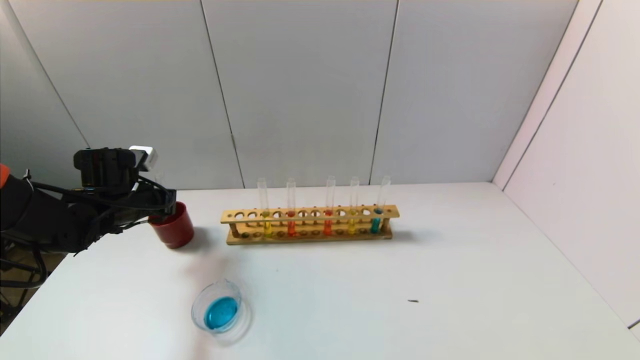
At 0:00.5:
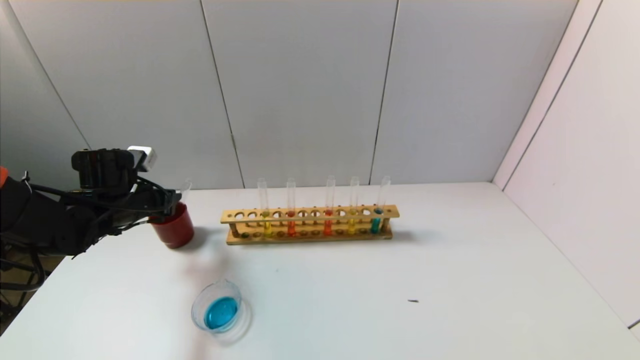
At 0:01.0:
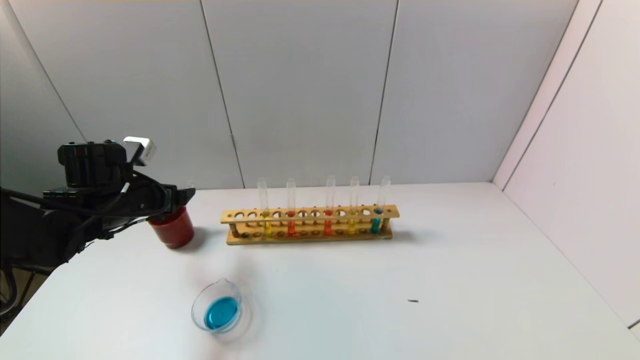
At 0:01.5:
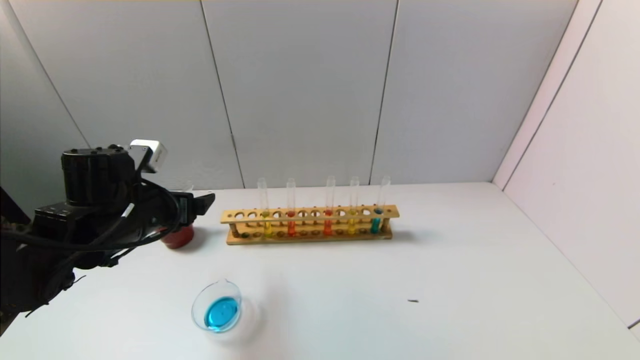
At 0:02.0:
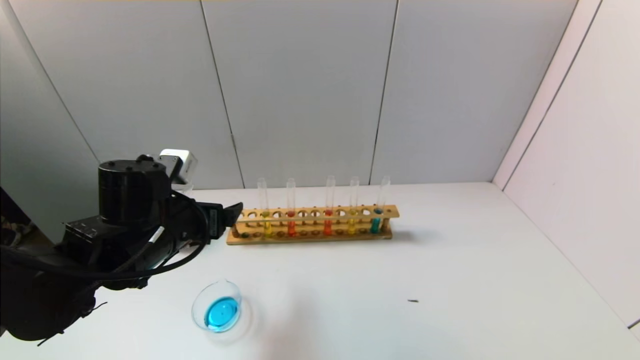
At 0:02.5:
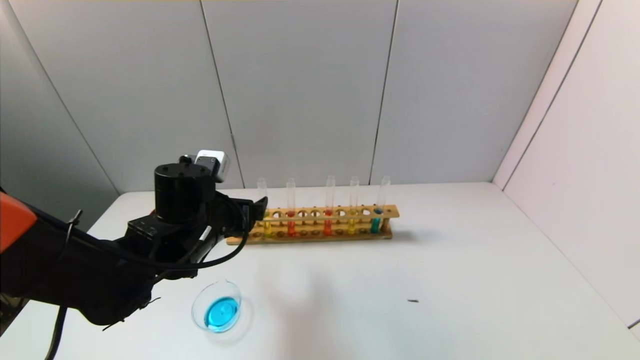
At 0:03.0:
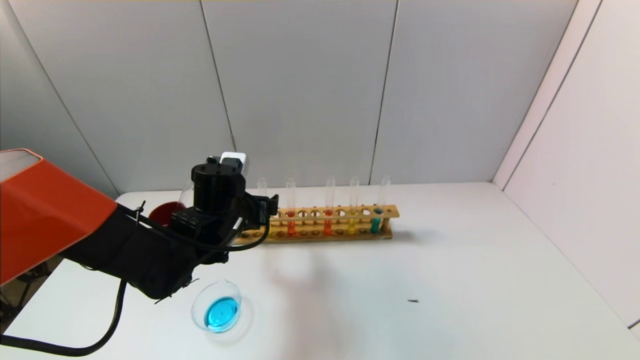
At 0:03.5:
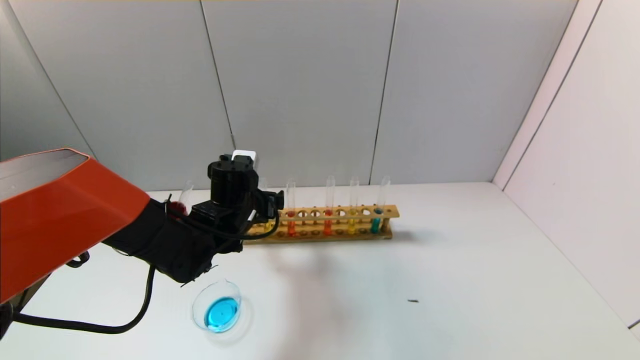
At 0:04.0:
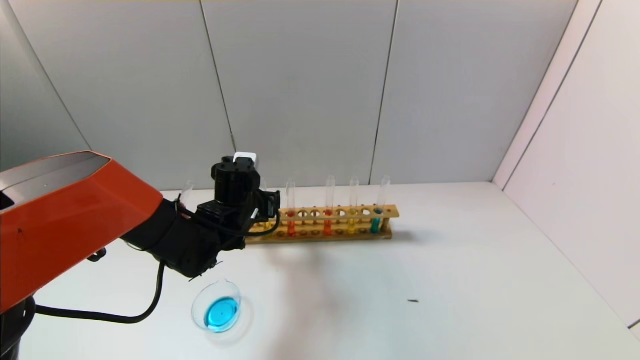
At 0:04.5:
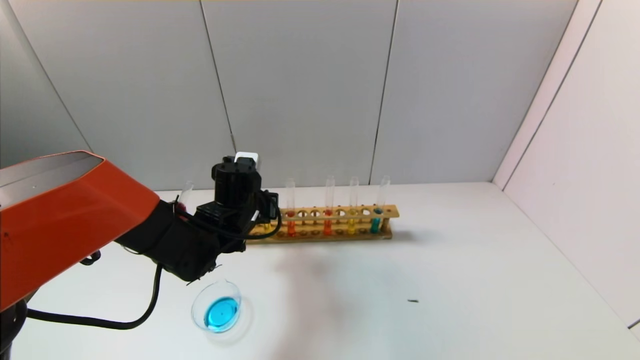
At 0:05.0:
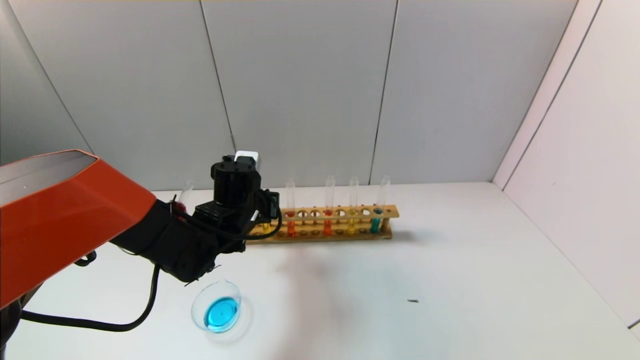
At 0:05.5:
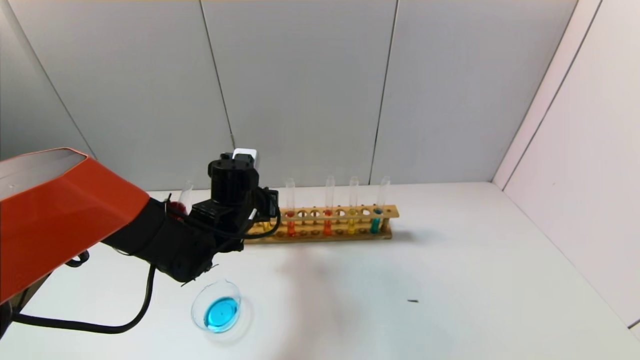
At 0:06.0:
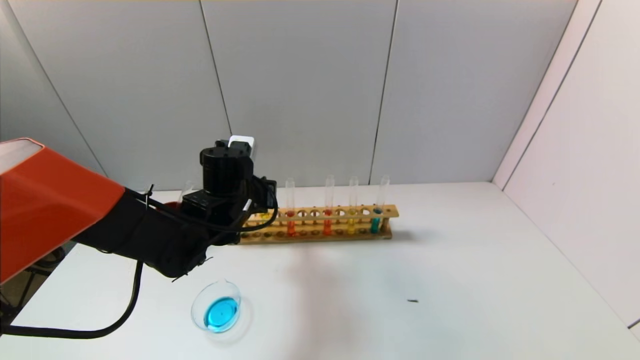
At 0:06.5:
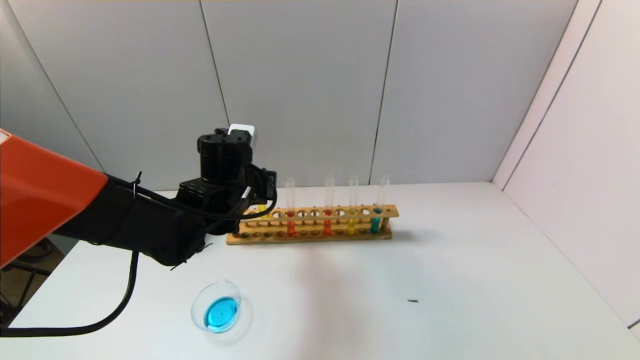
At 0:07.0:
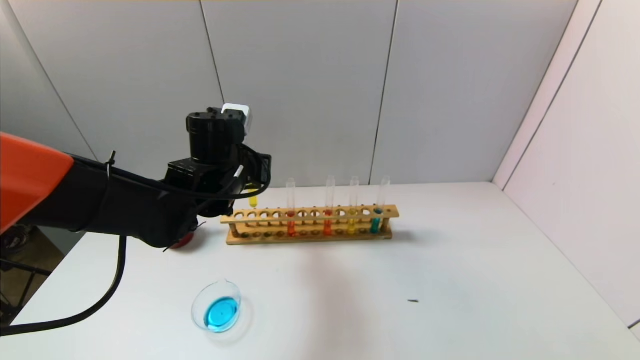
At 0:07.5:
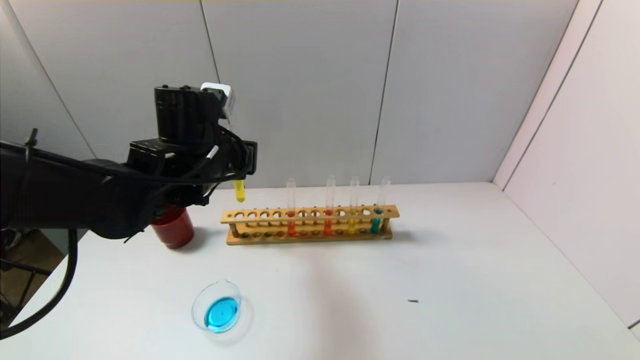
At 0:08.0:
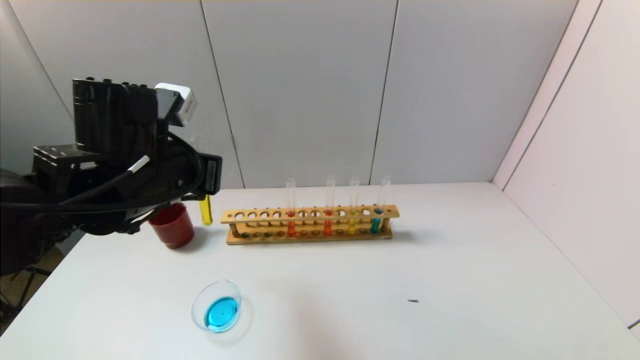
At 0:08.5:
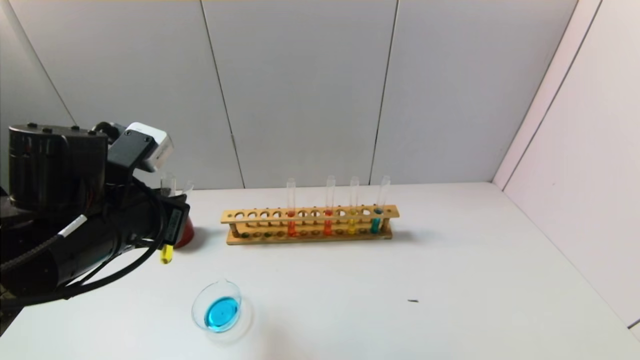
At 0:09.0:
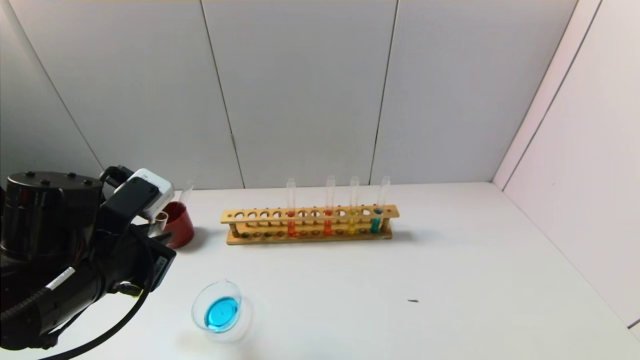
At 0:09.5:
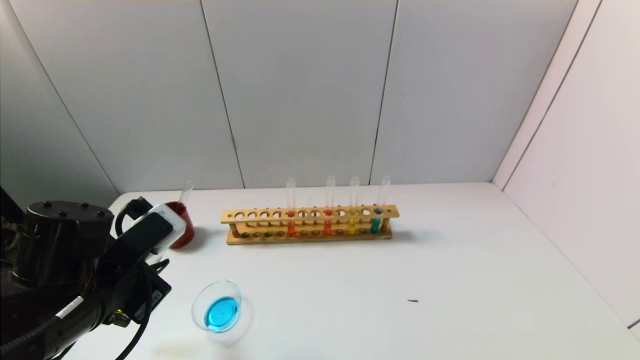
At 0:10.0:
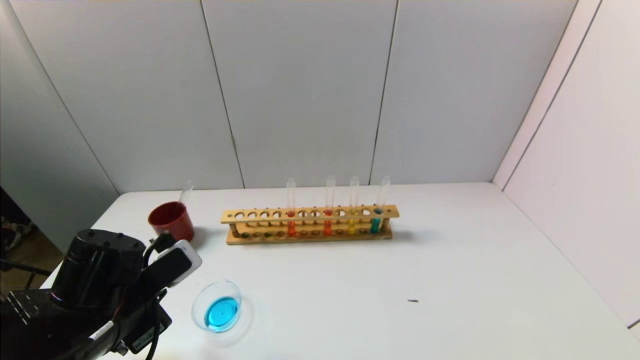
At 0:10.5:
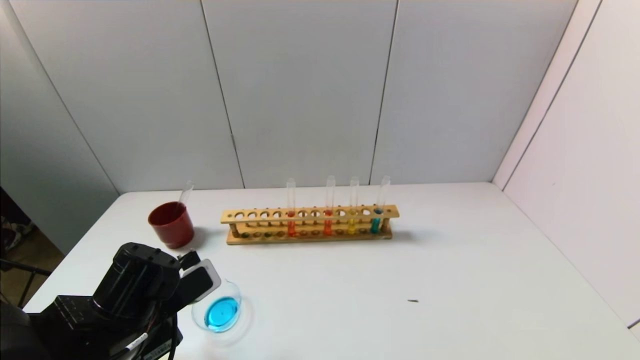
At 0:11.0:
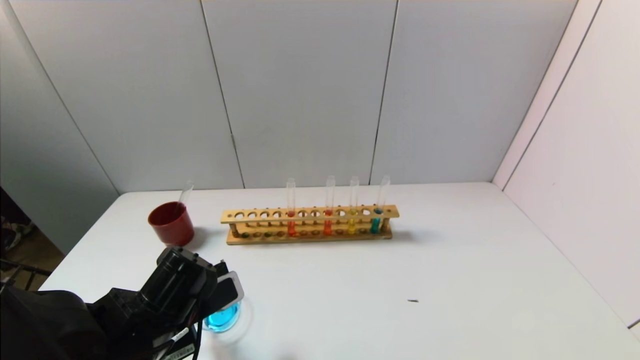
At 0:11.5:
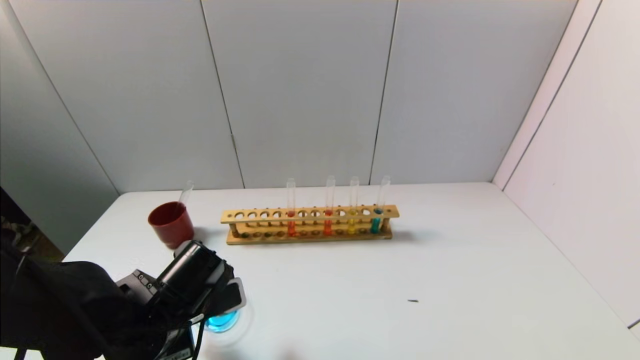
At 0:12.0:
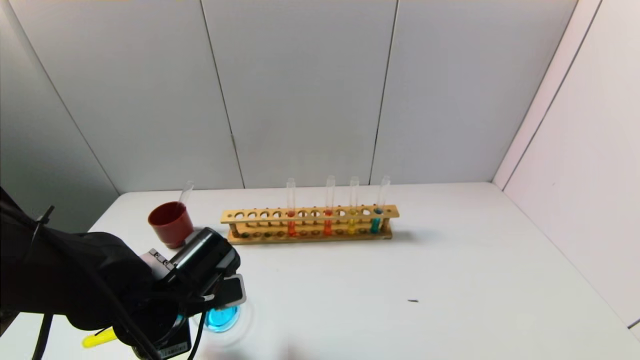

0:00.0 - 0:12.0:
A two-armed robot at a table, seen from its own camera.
Task of the whole recording: pick up the test tube with yellow pigment and the test tube with blue pigment by grippers and pour them into the beaker.
Step, 0:01.0 - 0:04.5: Grasp the yellow reagent with the left gripper.
0:00.0 - 0:02.0: The left gripper heads to the right and backward, covering about 15 cm, and opens up.
0:02.0 - 0:04.0: The left gripper shifts about 15 cm forward, to the right and downward.
0:04.0 - 0:06.0: The left gripper closes.
0:06.0 - 0:08.0: The left gripper travels upward and backward by about 15 cm.
0:08.0 - 0:10.0: The left gripper goes about 15 cm downward and backward.
0:10.0 - 0:12.0: The left gripper moves approximately 5 cm.

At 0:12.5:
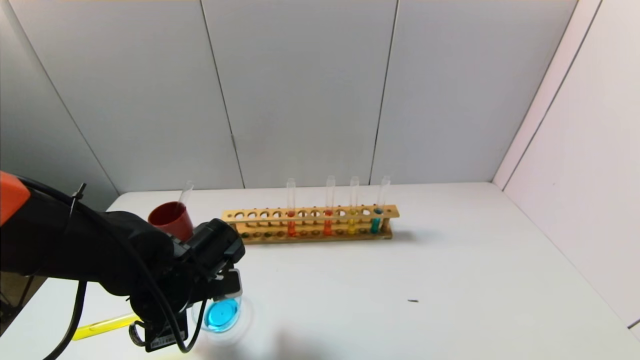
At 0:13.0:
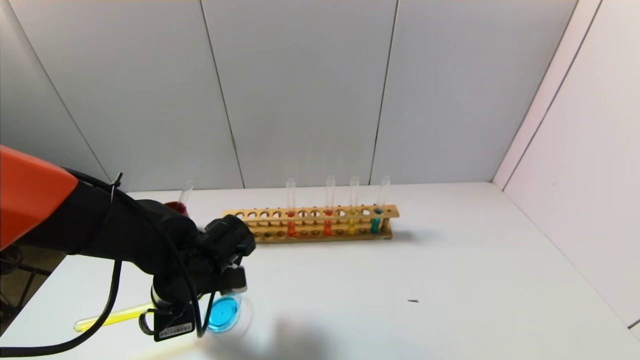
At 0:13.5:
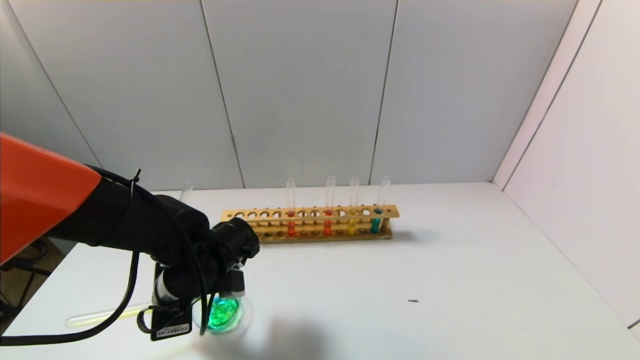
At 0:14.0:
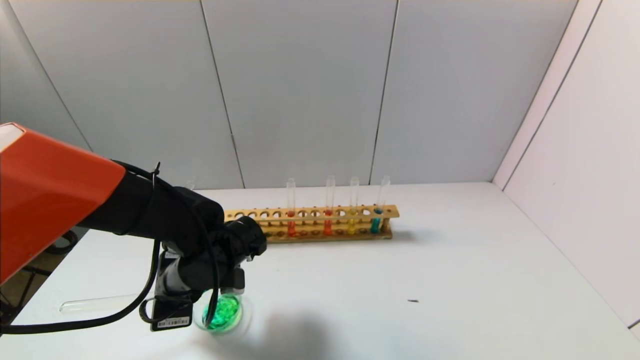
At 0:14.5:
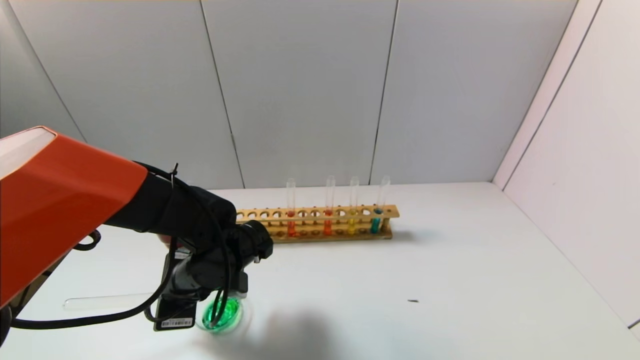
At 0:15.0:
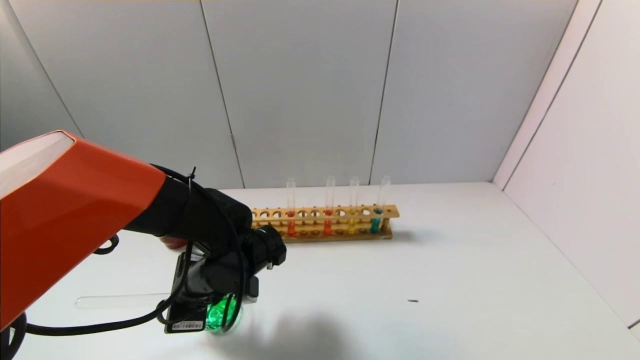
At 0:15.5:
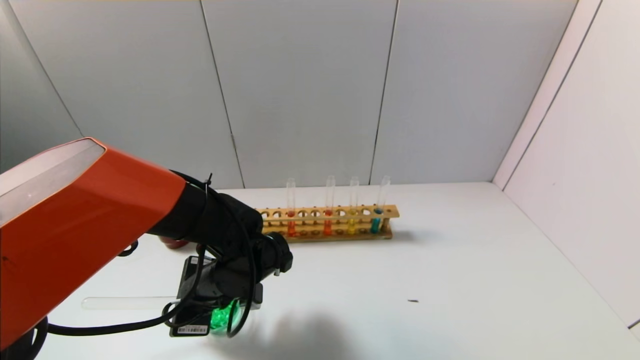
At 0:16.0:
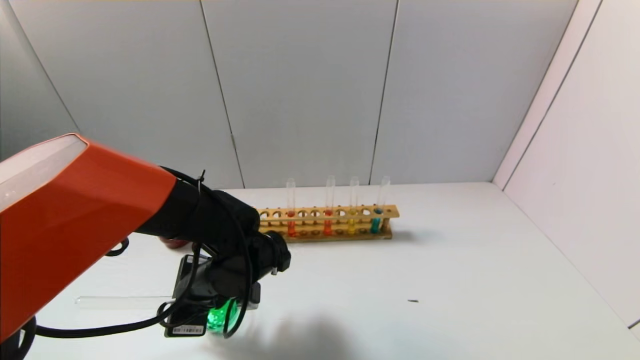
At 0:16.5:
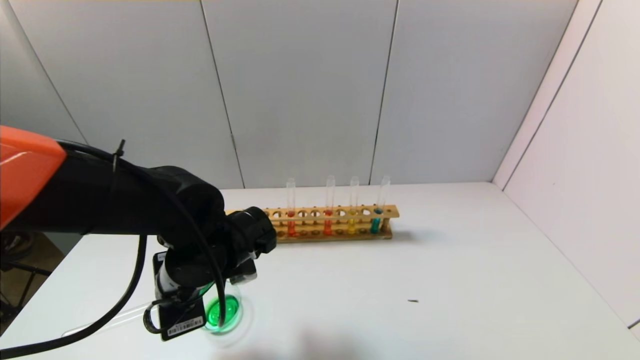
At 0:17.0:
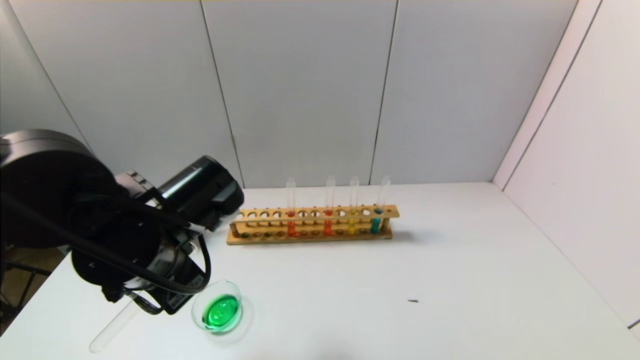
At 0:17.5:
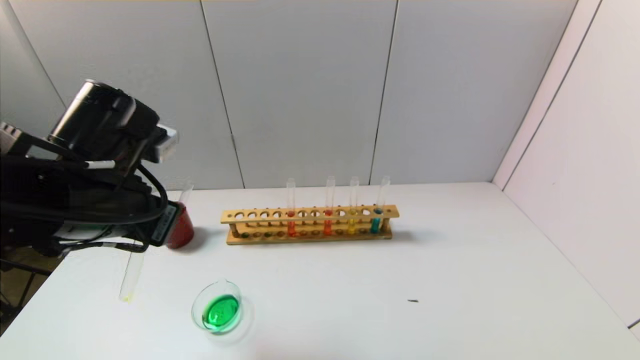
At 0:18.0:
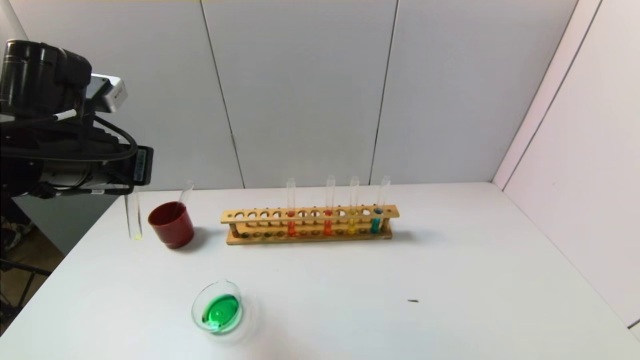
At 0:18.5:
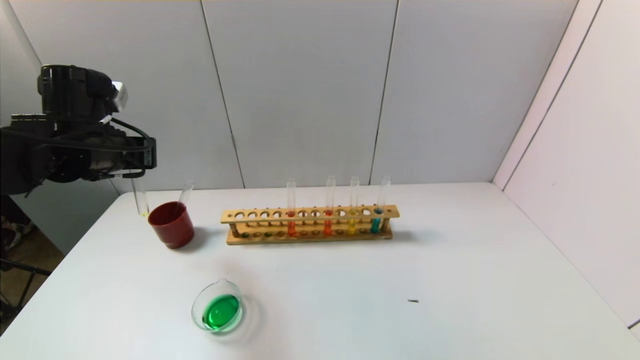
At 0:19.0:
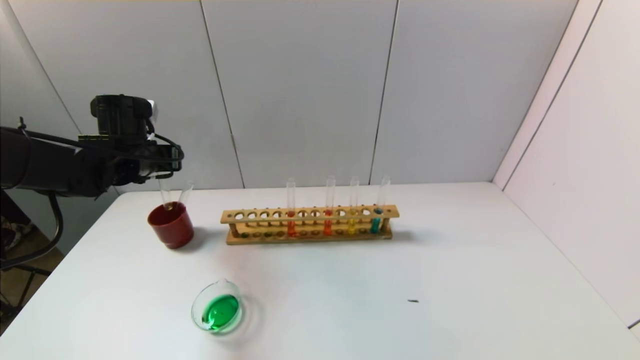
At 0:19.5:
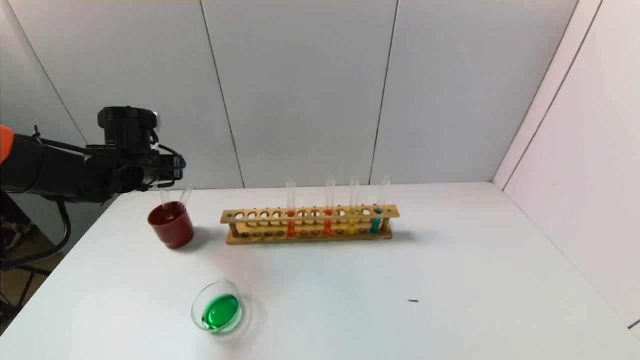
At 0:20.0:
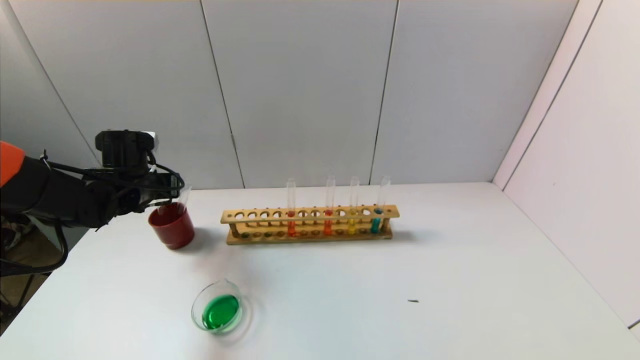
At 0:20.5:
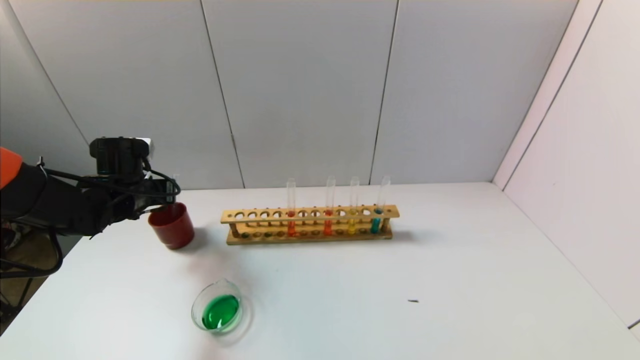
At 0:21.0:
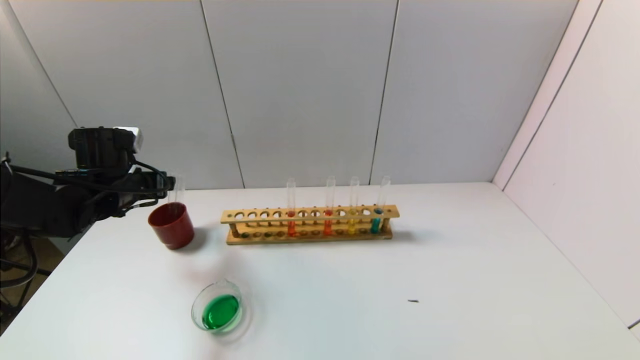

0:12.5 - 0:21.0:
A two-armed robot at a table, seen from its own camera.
Task of the whole recording: pick up the test tube with yellow pigment and the test tube with blue pigment by grippers and pour them into the beaker.
Step, 0:12.5 - 0:15.0: Pour the yellow reagent into the graduated cylinder with the left gripper.
Step, 0:15.5 - 0:20.5: Place the test tube into the brown cup with the left gripper.
0:12.5 - 0:14.5: The grippers move only a little.
0:14.5 - 0:16.5: The left gripper moves roughly 5 cm.
0:16.5 - 0:19.0: The left gripper is displaced forward and to the left by about 20 cm.
0:19.0 - 0:21.0: The left gripper ends up some 5 cm from where it was, and opens up.
